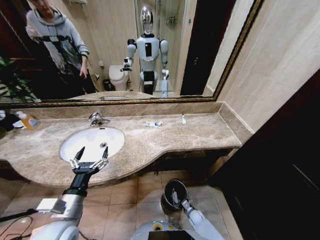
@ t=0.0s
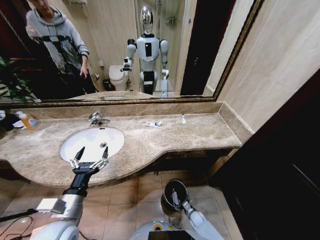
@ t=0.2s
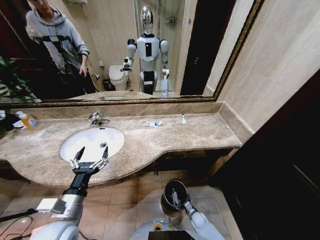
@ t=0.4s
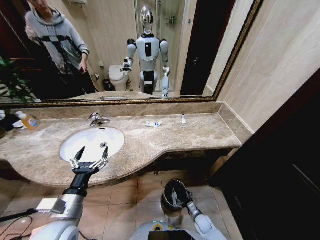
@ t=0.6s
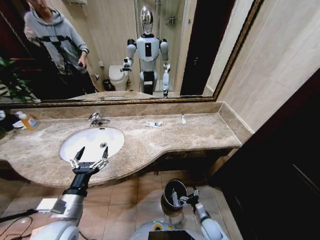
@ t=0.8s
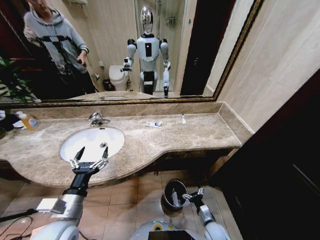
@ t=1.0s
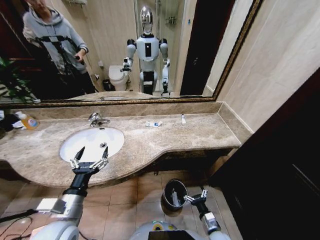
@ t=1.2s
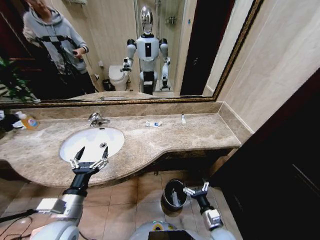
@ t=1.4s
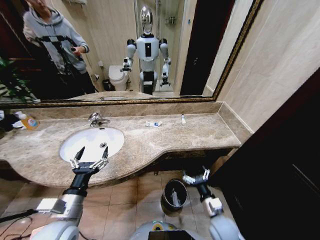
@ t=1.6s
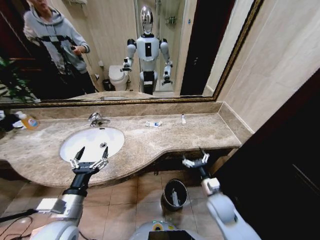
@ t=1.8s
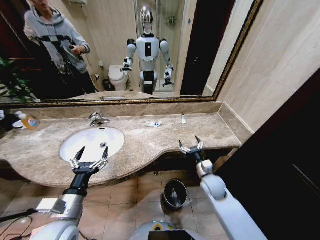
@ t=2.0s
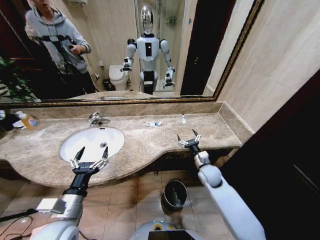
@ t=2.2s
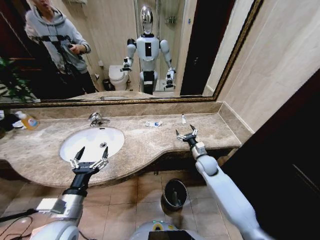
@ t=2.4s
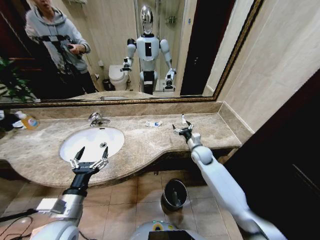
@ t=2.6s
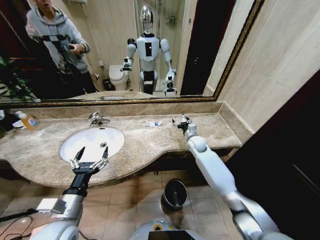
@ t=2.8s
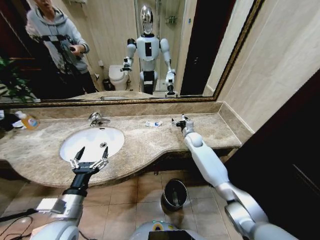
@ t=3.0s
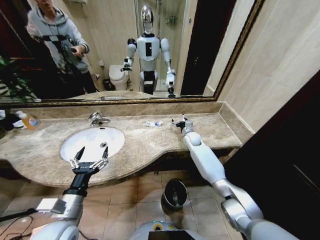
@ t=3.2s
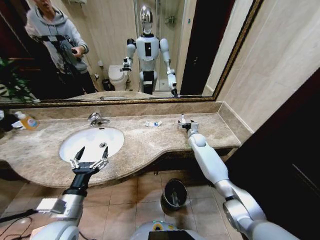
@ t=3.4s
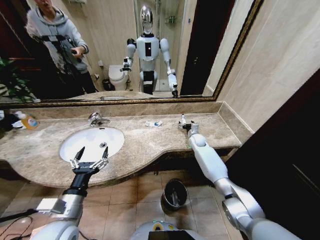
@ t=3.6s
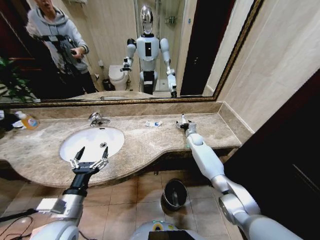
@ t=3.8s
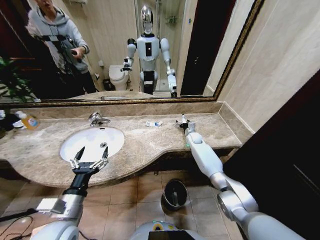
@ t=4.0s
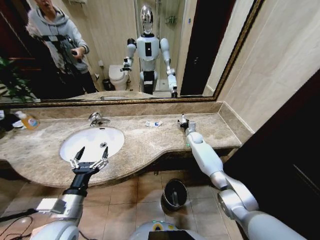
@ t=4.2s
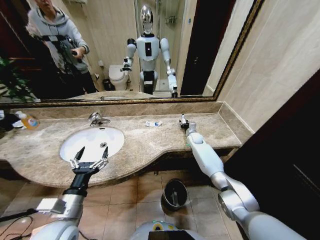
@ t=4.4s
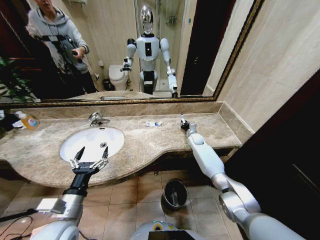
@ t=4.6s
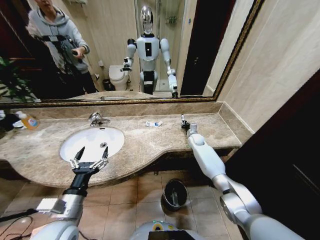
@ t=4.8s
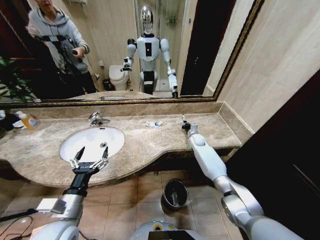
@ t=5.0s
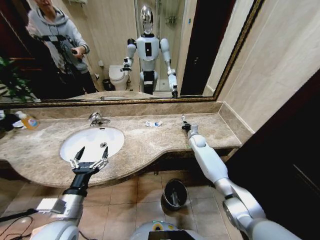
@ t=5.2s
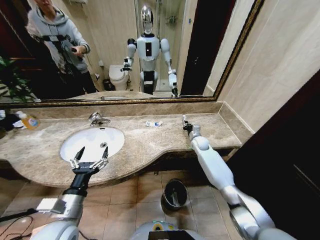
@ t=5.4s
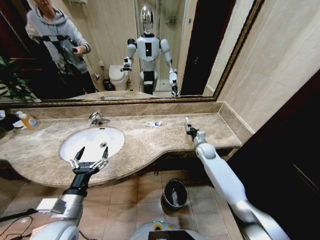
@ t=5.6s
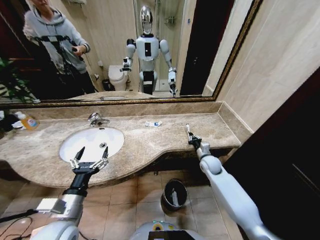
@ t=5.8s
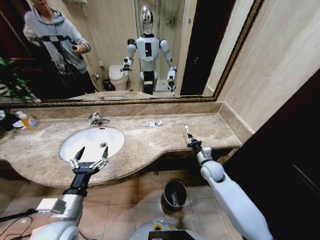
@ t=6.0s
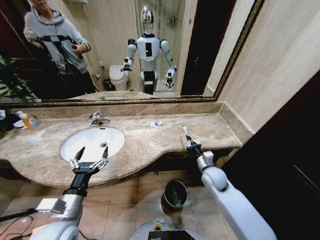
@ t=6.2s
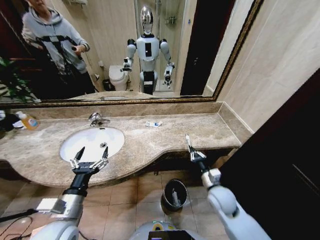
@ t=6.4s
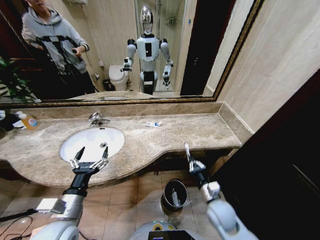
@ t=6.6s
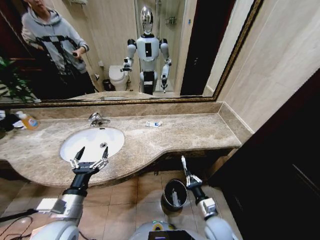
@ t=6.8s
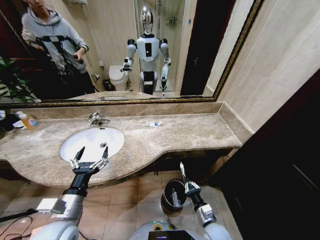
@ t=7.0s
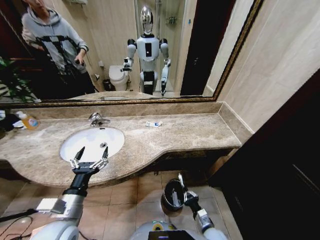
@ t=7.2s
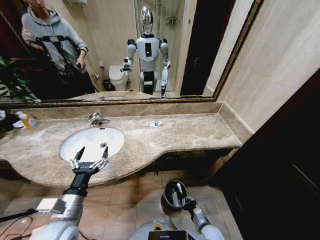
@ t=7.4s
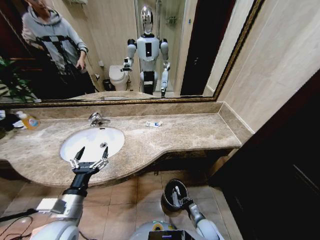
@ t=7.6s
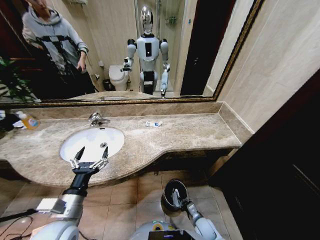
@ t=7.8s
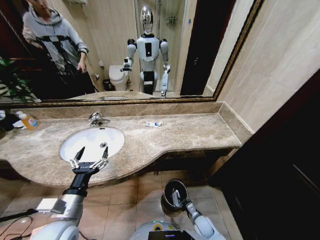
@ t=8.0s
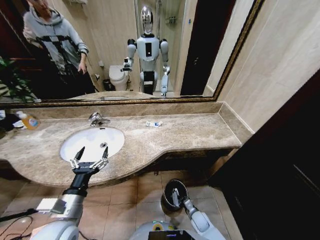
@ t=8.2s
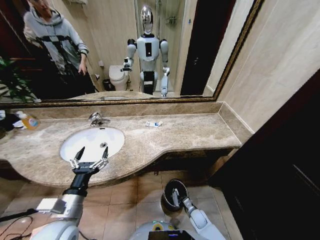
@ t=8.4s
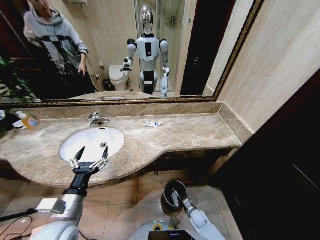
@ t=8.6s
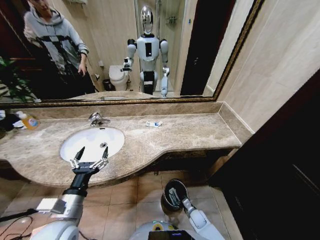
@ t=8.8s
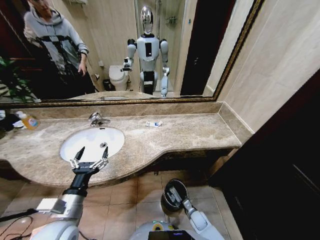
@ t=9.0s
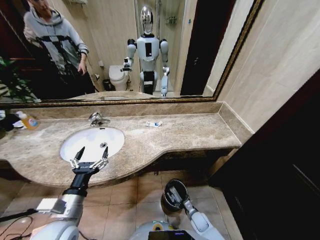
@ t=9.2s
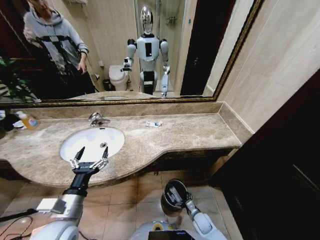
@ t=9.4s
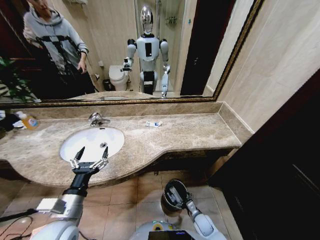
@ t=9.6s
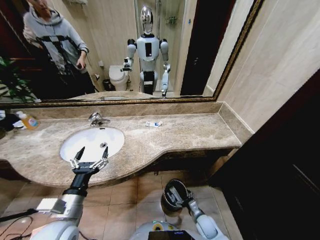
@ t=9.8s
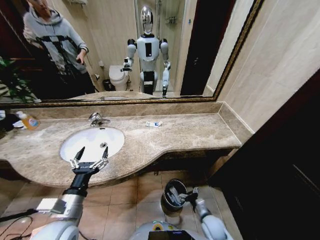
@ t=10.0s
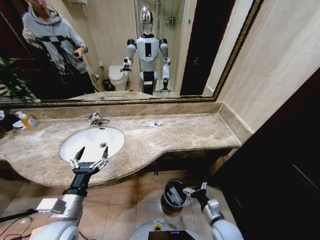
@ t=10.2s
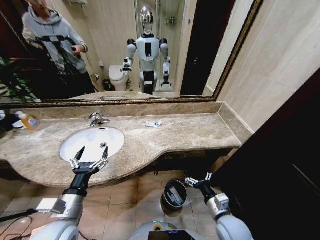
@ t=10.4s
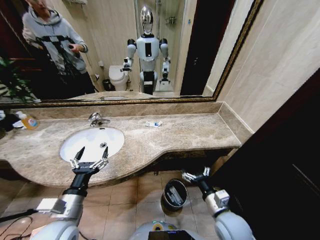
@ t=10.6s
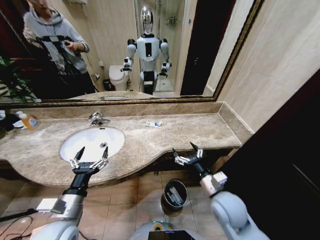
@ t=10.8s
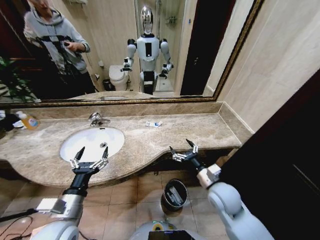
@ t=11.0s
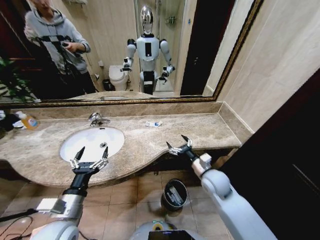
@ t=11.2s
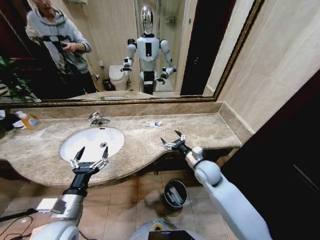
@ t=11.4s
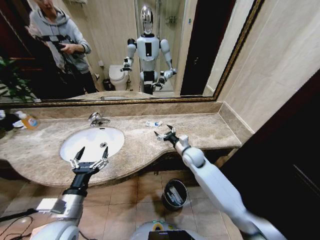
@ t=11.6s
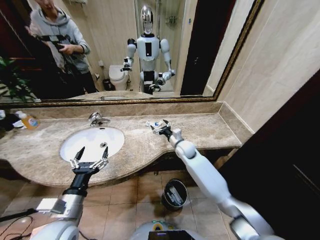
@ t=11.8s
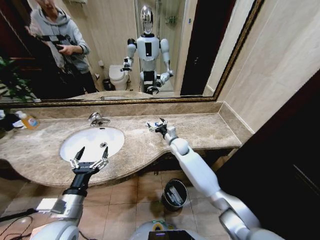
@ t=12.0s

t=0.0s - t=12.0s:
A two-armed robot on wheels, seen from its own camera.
Task of the whole recording: Pick up the trash from the sink and place it in the trash bin.
t=0.0s - t=1.6s: The right gripper moves upward, approximately 30 cm.
t=1.6s - t=3.0s: The right gripper moves forward, approximately 40 cm.
t=3.0s - t=4.4s: The right gripper shifts by about 10 cm, and closes up.
t=4.4s - t=6.0s: The right gripper travels backward by some 20 cm, and closes its fingers.
t=6.0s - t=7.6s: The right gripper goes roughly 30 cm downward and backward.
t=7.6s - t=9.0s: The right gripper is displaced downward by approximately 10 cm, and opens up.
t=9.0s - t=10.4s: The right gripper heads upward, covering approximately 25 cm, and opens.
t=10.4s - t=12.0s: The right gripper shifts about 35 cm forward.

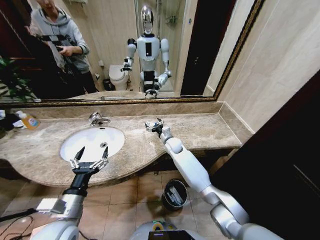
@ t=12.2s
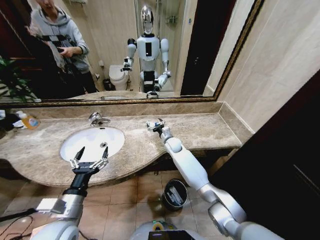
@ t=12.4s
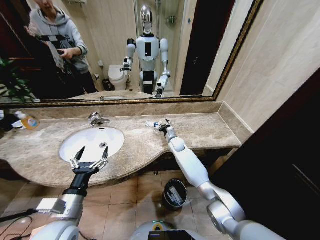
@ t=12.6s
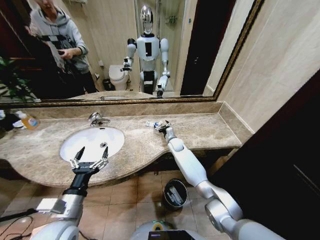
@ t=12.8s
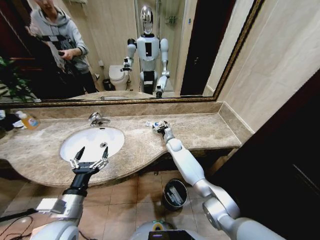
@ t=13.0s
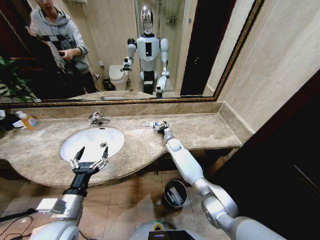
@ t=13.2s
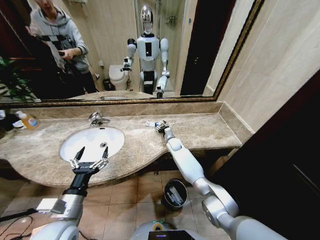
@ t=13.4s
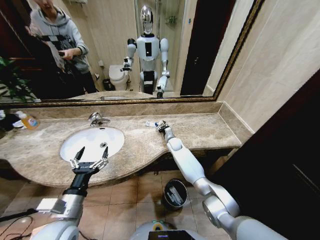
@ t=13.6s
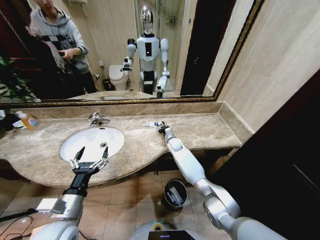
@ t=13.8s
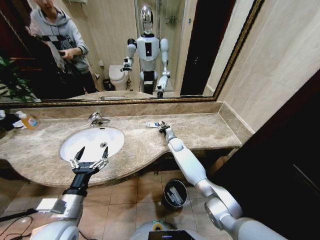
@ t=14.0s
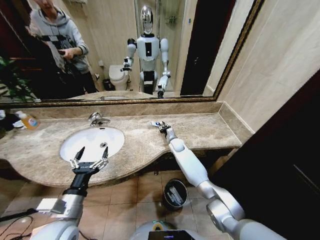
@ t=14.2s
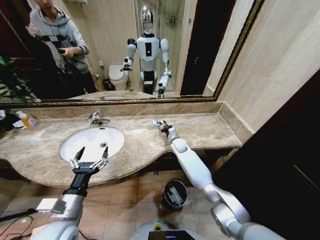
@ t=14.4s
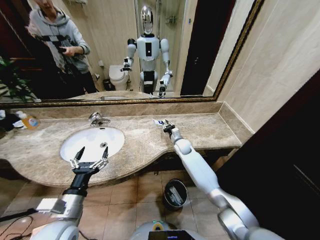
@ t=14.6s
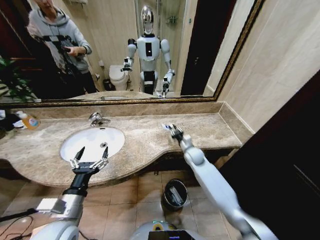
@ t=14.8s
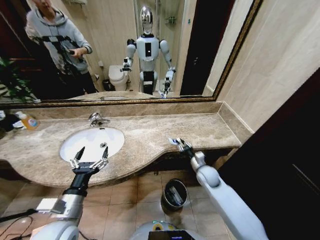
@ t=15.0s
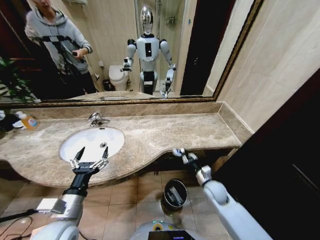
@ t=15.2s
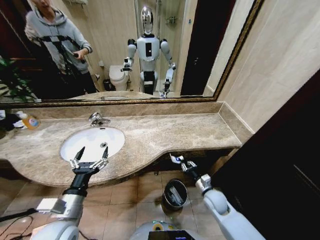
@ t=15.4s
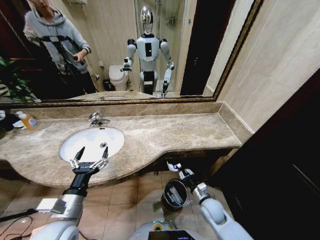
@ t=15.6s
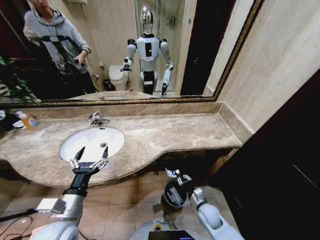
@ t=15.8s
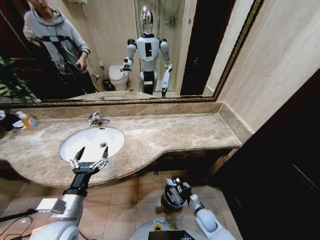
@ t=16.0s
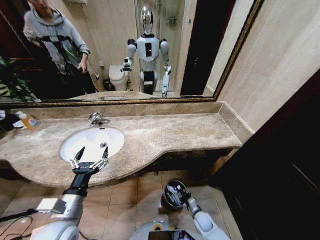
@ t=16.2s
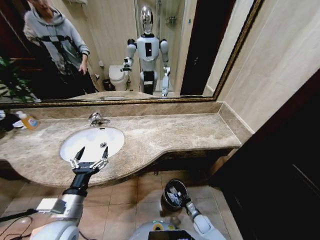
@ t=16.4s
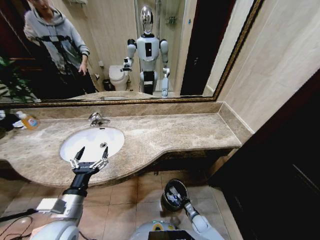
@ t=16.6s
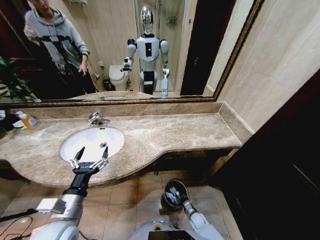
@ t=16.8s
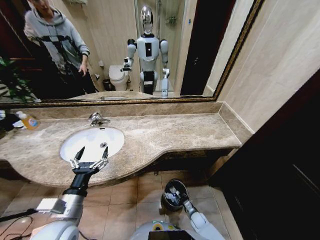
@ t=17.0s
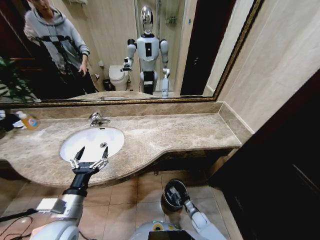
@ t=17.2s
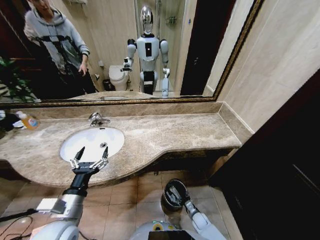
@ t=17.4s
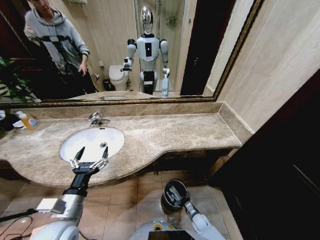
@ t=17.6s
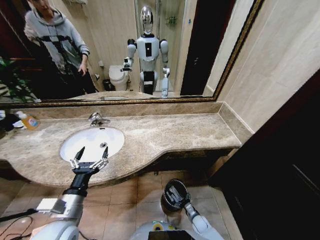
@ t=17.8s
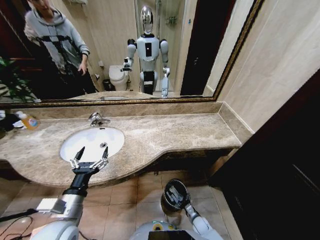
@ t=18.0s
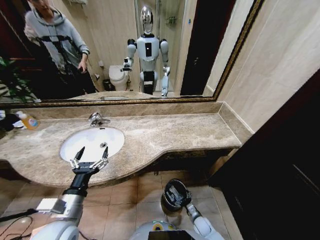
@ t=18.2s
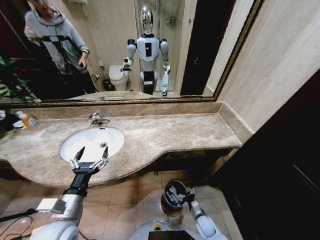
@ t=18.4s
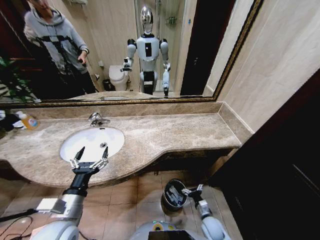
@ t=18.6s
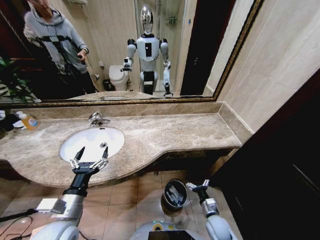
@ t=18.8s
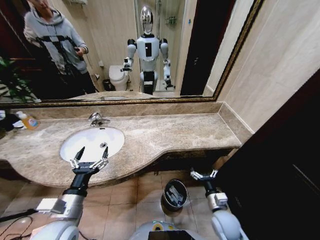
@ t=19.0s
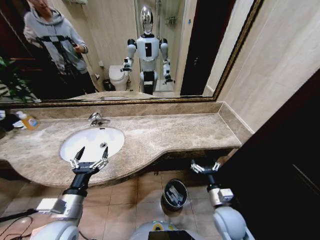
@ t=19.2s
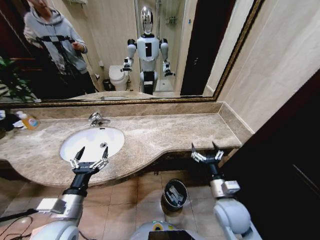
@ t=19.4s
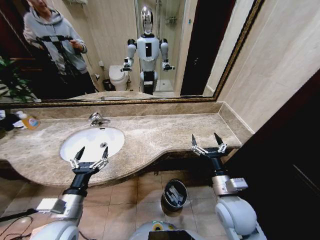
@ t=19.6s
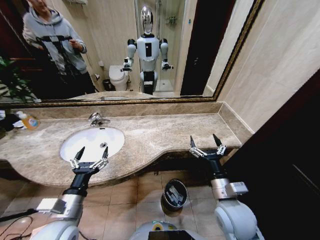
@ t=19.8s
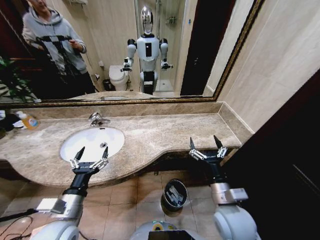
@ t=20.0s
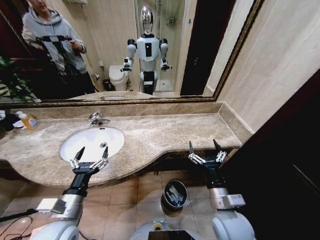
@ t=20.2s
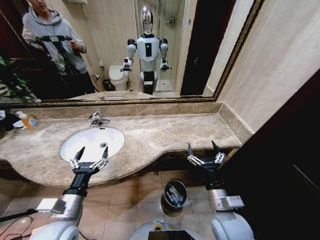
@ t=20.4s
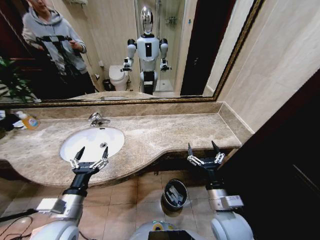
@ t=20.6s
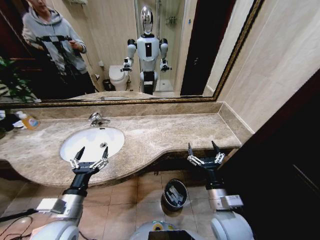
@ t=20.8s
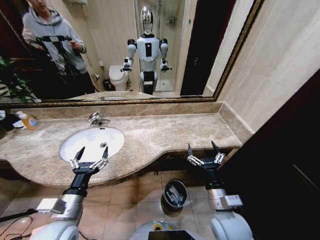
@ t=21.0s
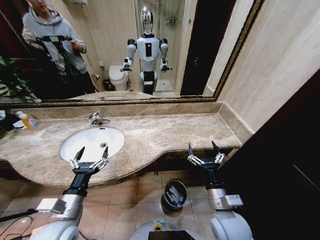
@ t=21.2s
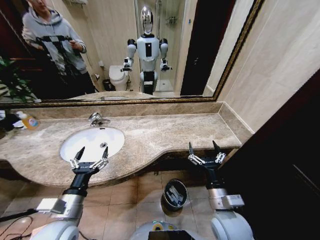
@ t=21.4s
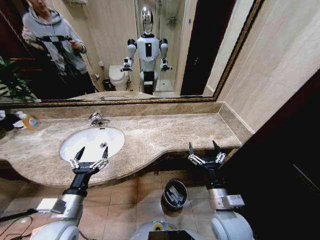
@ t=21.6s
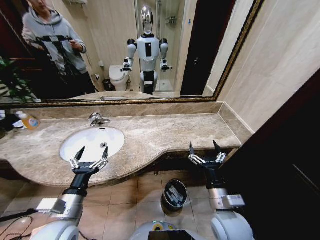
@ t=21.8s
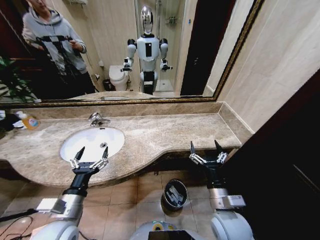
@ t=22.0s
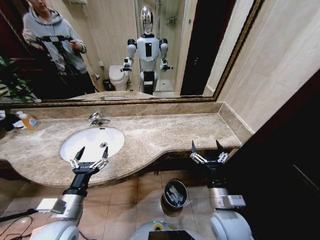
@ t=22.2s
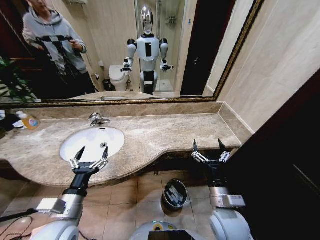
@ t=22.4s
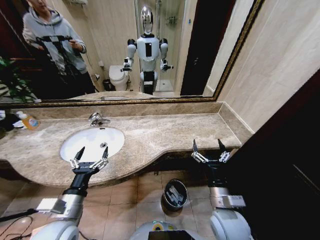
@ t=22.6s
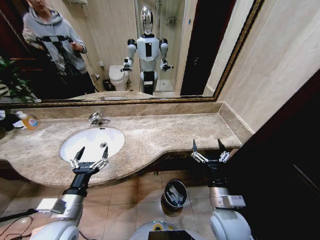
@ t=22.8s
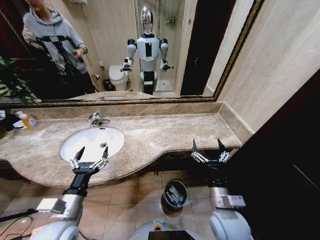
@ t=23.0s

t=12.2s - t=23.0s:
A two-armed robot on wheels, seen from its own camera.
Task of the whole recording: Pick up the trash from the sink and place it in the trash bin.
t=12.2s - t=13.8s: The right gripper is displaced downward by some 5 cm, and closes.
t=13.8s - t=15.2s: The right gripper travels backward and to the right by about 30 cm.
t=15.2s - t=16.8s: The right gripper moves downward, some 25 cm.
t=16.8s - t=18.4s: The right gripper shifts approximately 5 cm upward, and opens up.
t=18.4s - t=20.0s: The right gripper travels upward by roughly 35 cm.
t=20.0s - t=23.0s: The grippers stay close to where they were, moving slightly.
